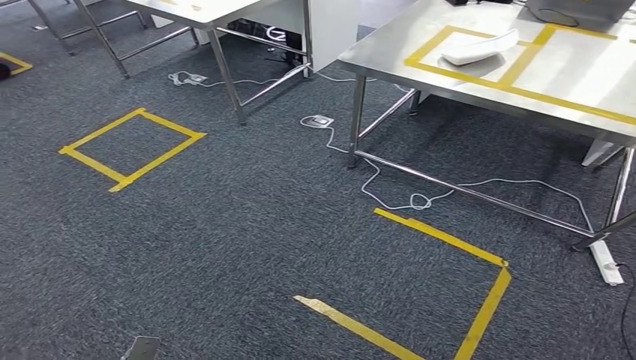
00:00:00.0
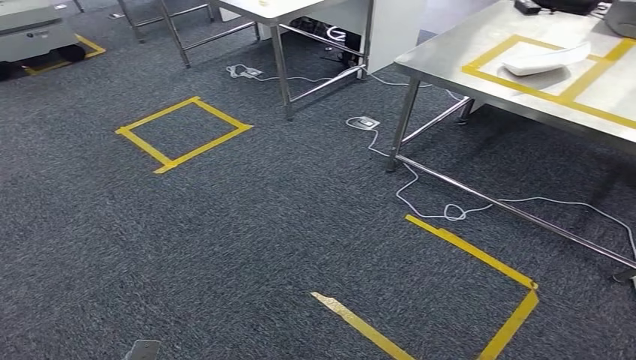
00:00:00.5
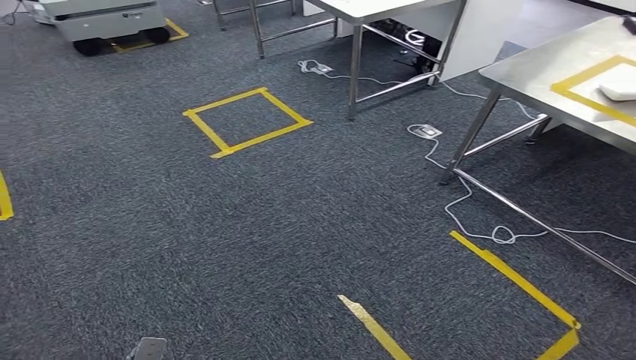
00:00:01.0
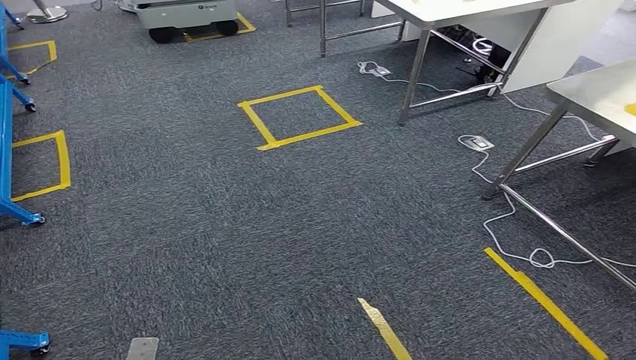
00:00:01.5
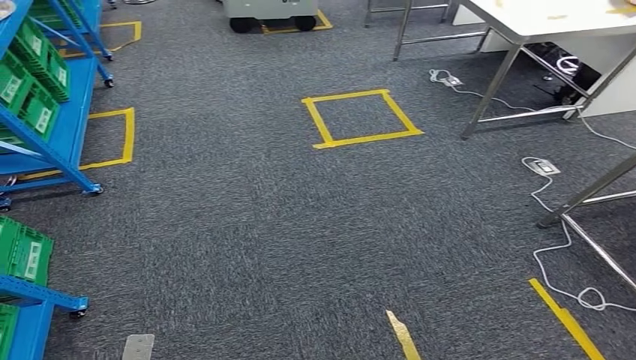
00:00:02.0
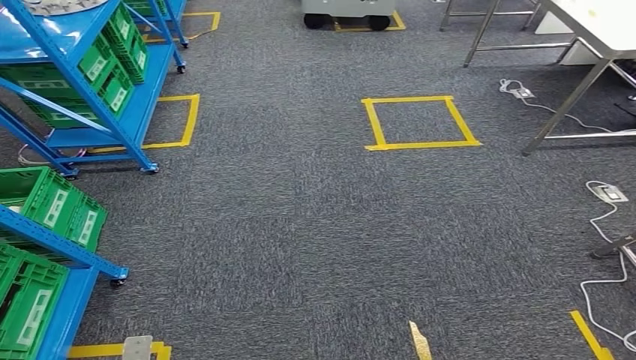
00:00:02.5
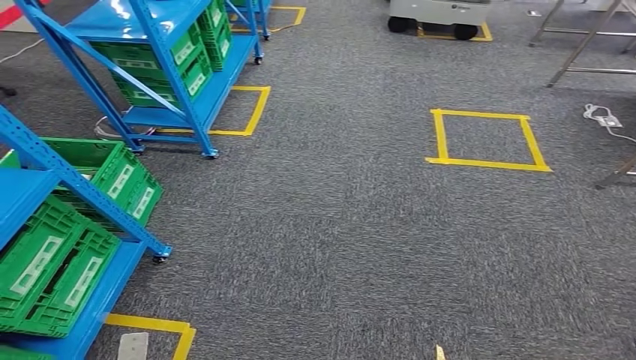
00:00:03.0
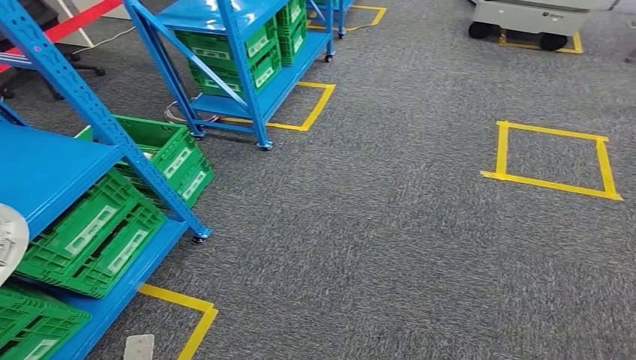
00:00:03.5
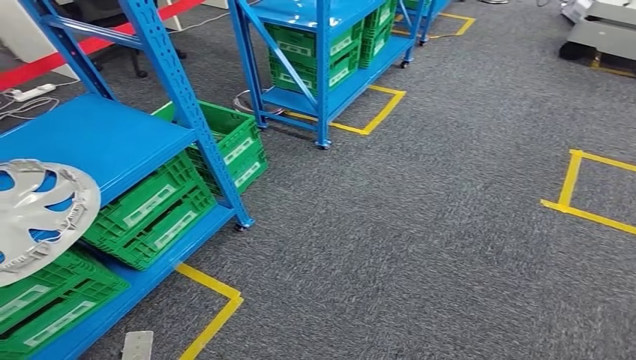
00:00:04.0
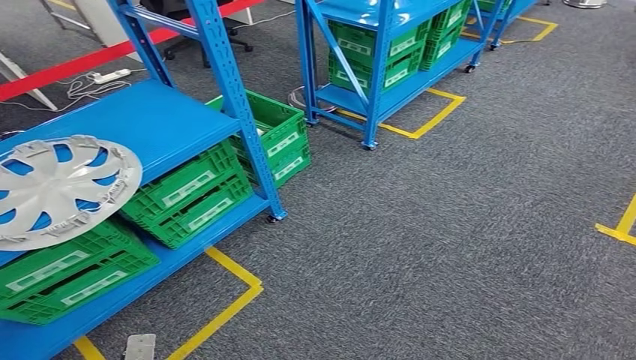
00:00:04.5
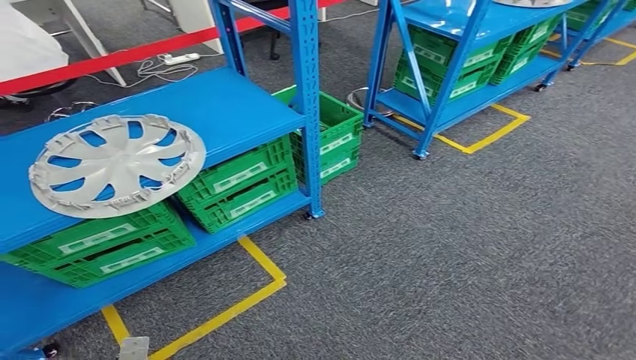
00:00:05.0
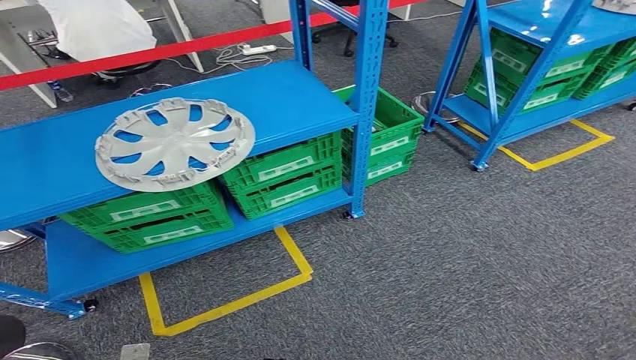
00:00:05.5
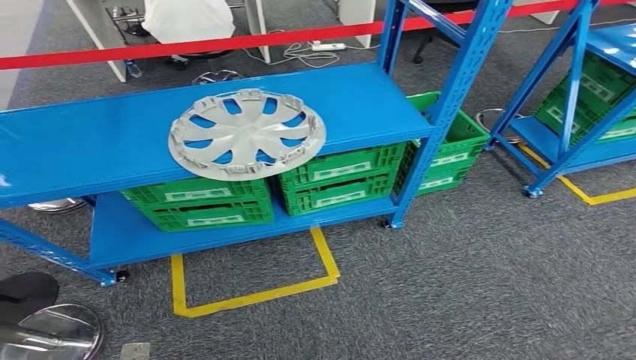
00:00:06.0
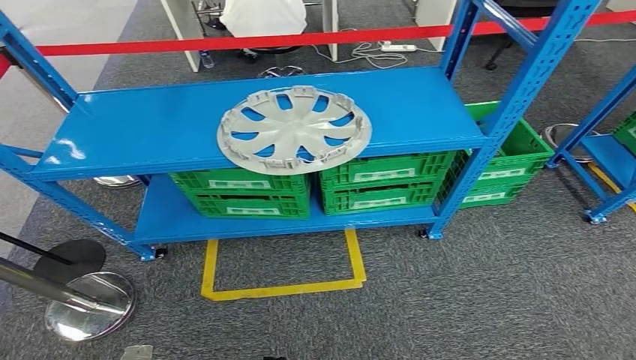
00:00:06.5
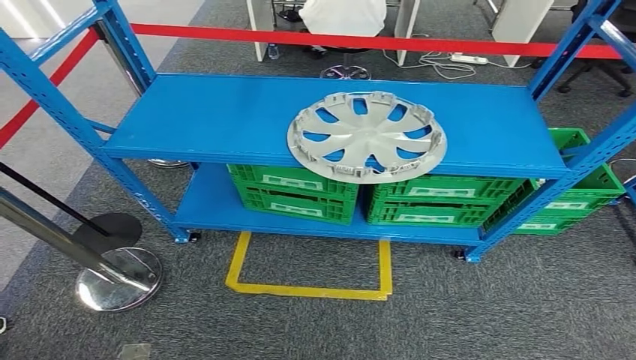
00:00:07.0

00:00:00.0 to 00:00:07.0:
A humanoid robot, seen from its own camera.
Step, 00:00:00.0 to 00:00:07.0: Move to the initial position of the workbench.

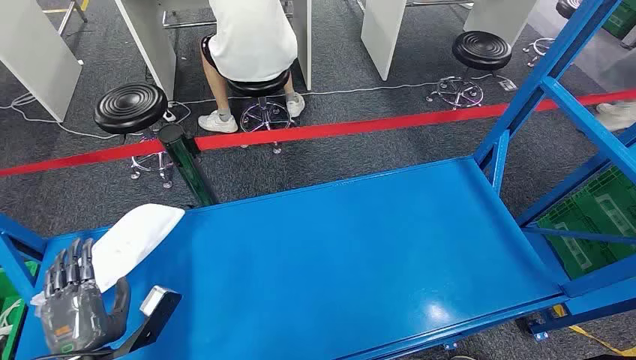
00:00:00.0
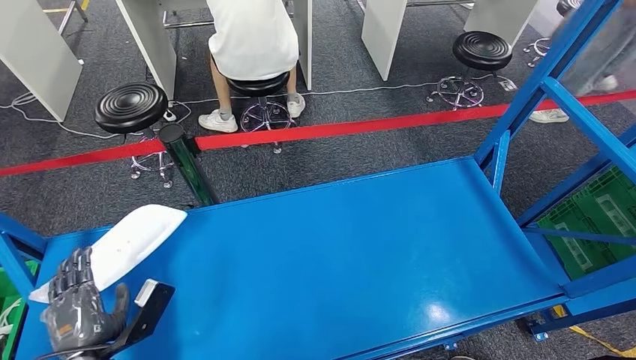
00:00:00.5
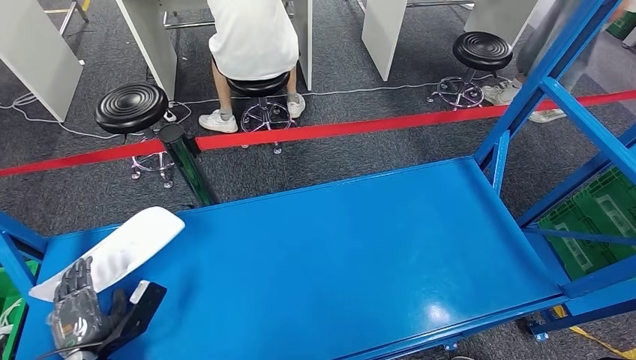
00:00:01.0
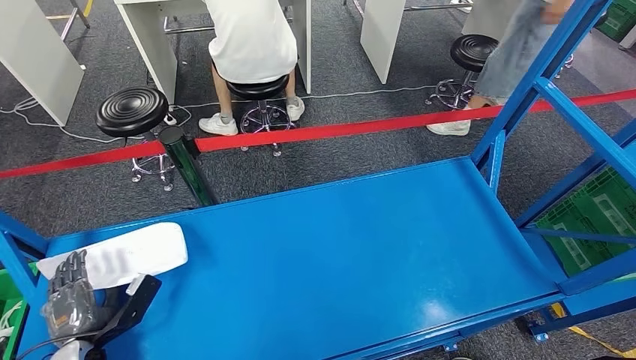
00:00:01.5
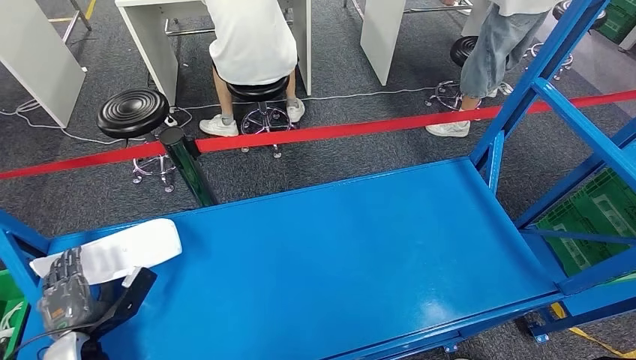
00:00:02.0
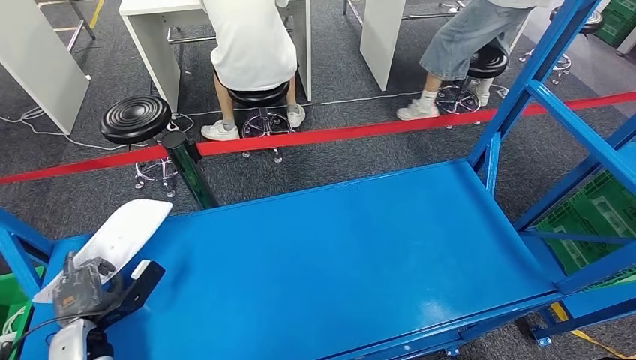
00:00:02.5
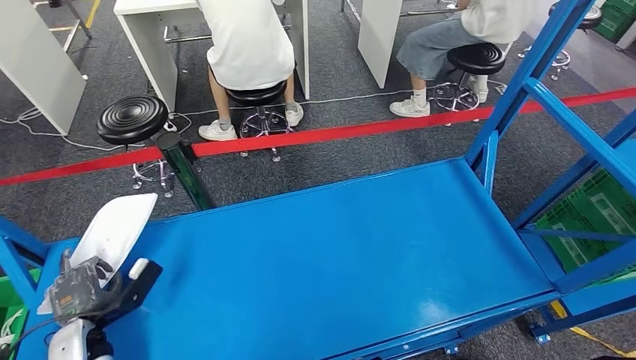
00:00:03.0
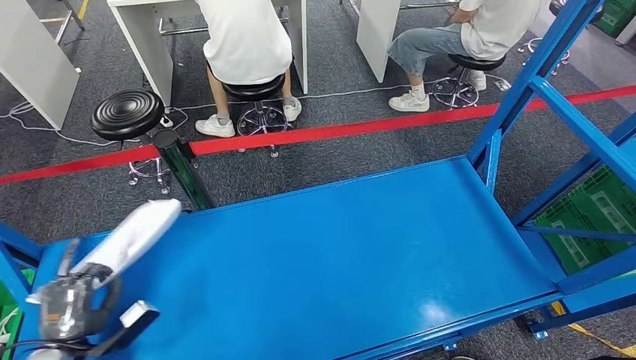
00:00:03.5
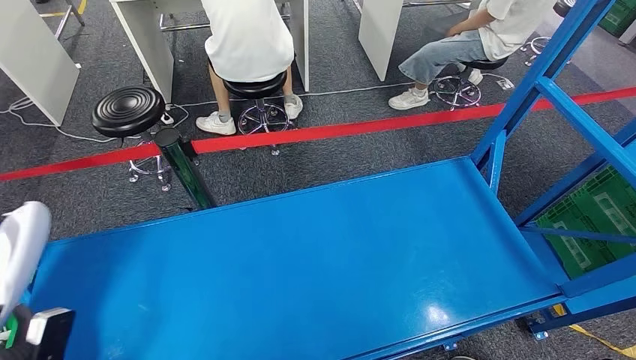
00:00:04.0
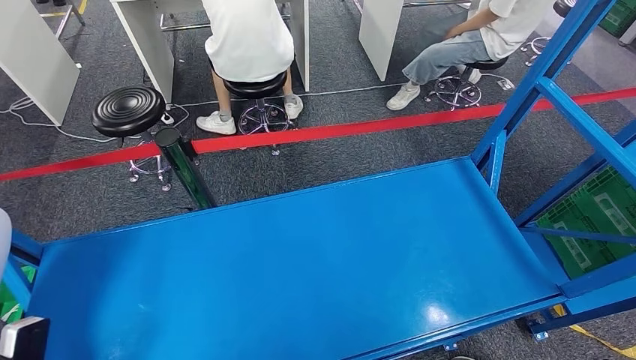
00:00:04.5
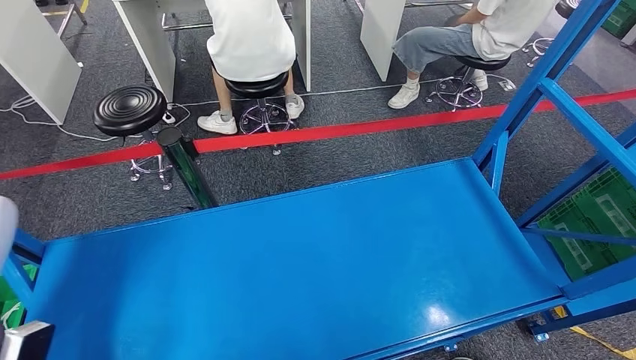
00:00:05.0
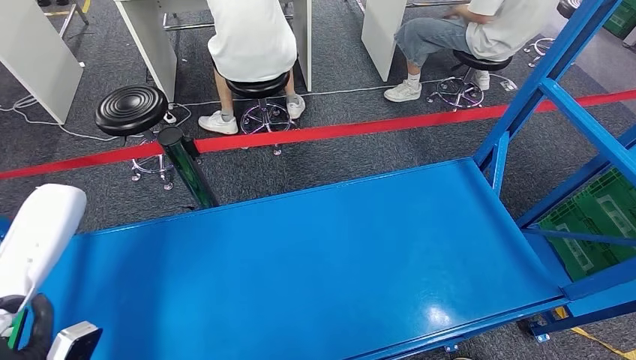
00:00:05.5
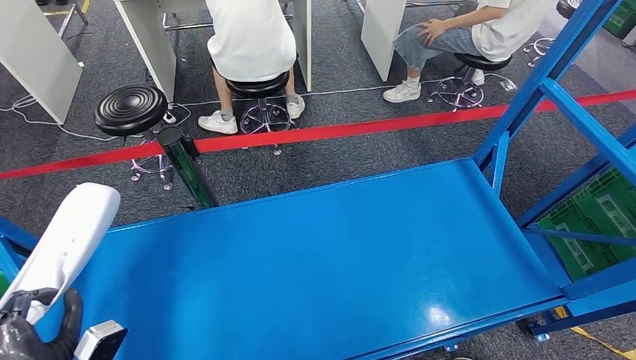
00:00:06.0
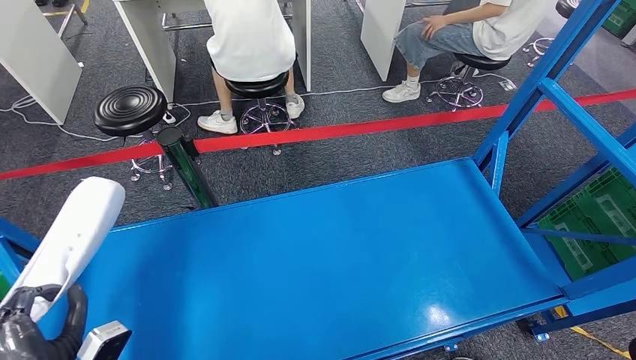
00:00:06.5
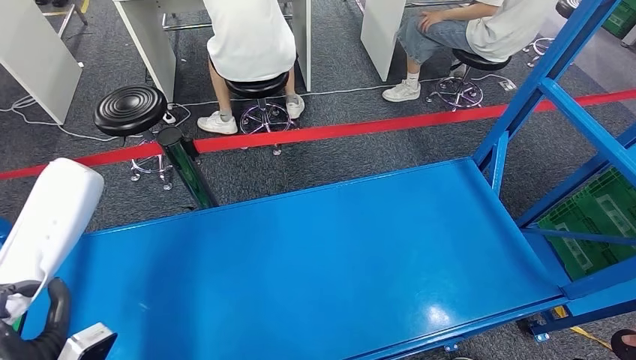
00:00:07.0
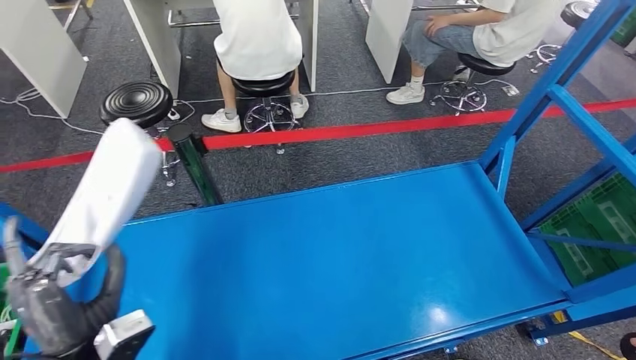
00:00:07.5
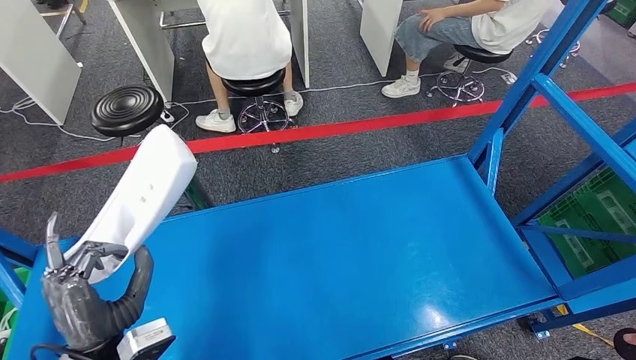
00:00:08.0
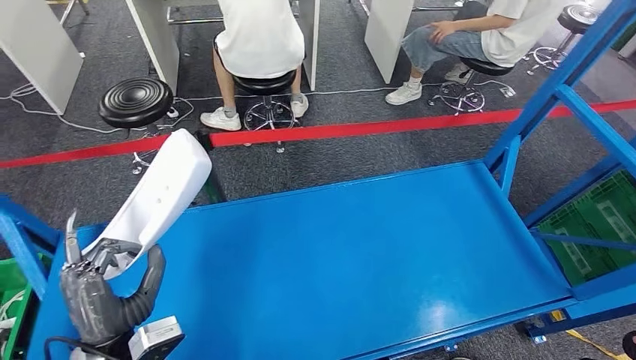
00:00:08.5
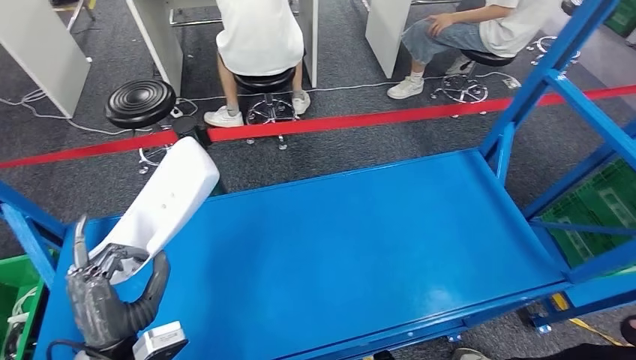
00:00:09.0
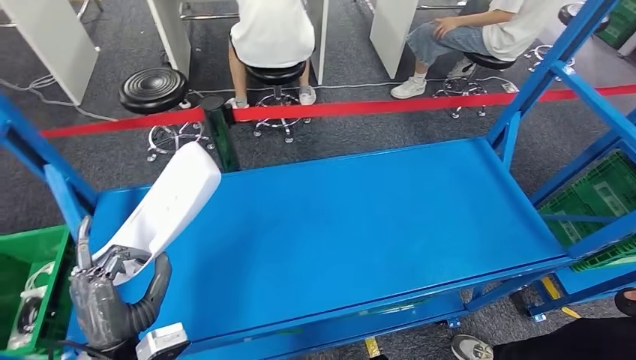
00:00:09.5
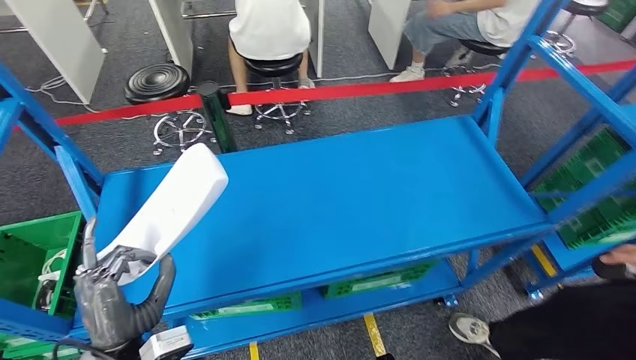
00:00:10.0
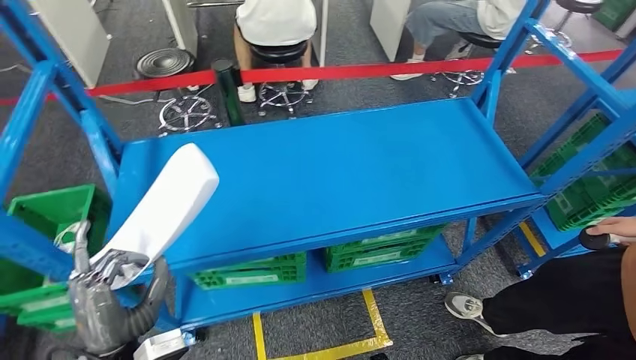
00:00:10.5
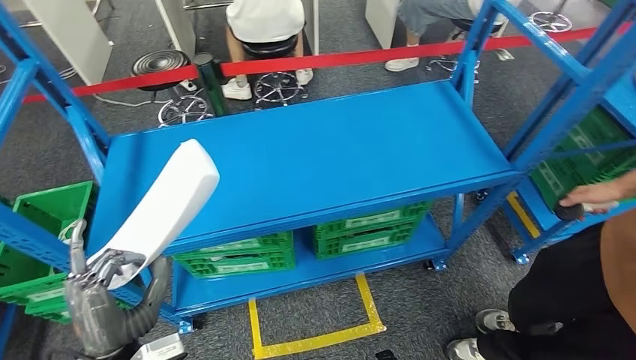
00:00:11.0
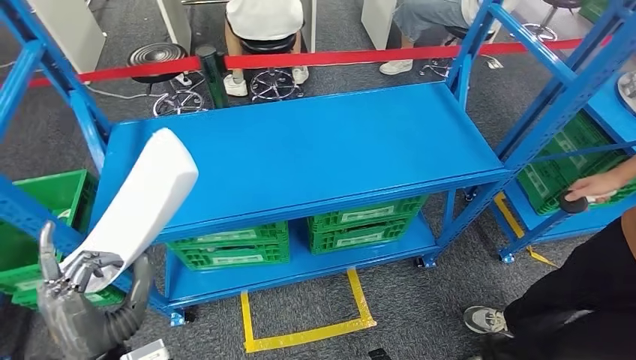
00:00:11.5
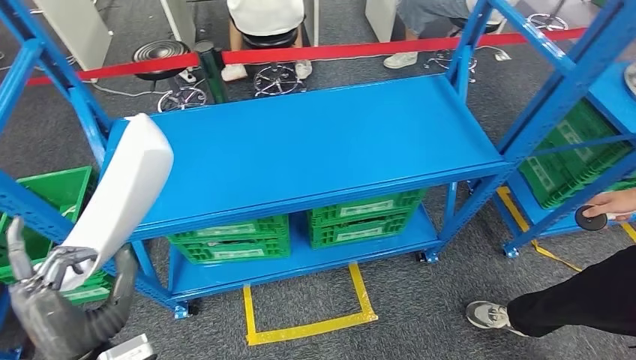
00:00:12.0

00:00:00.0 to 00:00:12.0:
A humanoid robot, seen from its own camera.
00:00:04.0 to 00:00:06.0: The left hand moves to the right, approximately 5 cm.

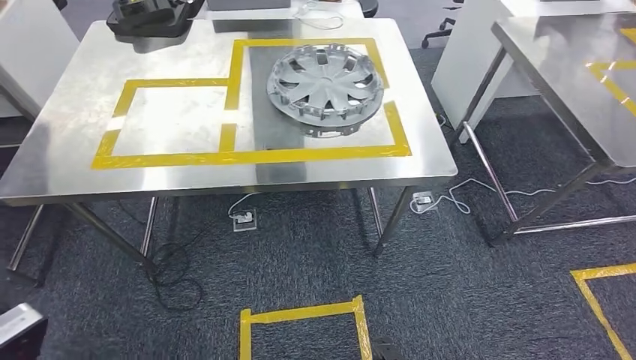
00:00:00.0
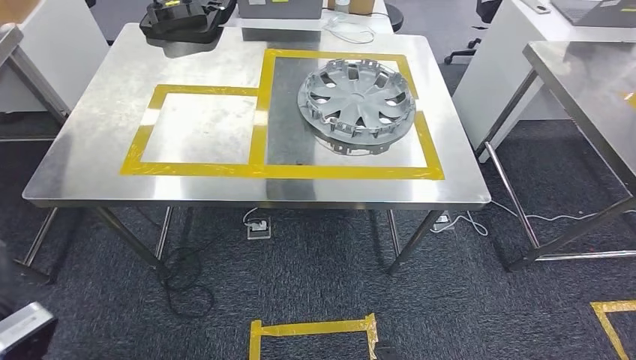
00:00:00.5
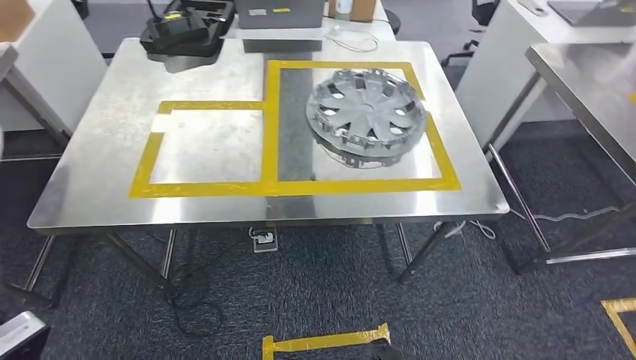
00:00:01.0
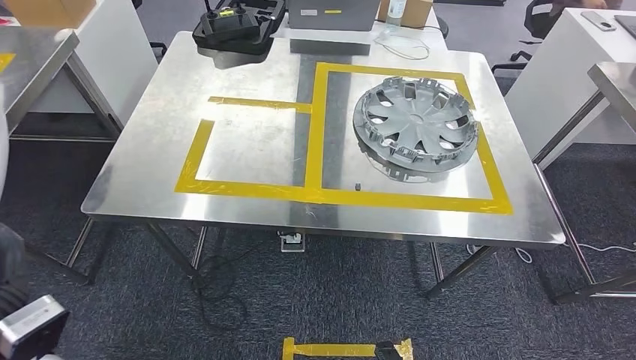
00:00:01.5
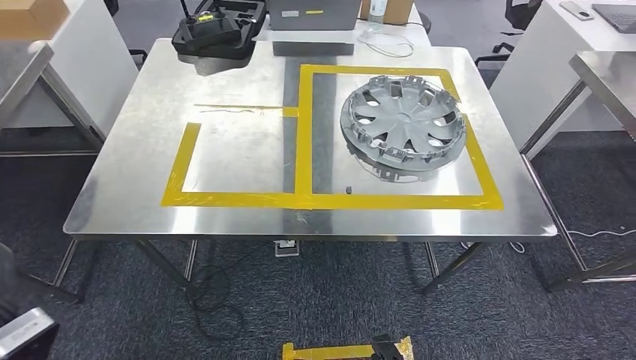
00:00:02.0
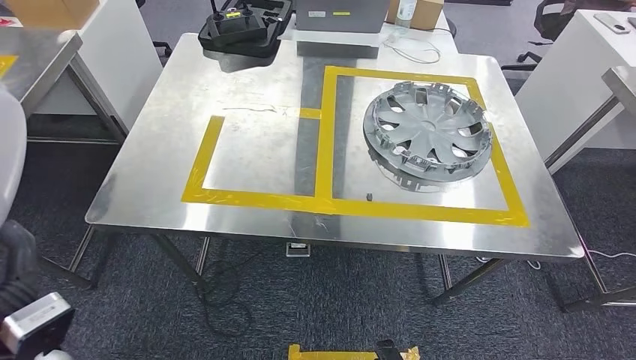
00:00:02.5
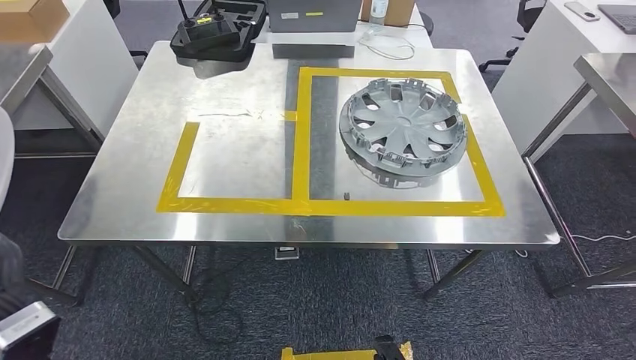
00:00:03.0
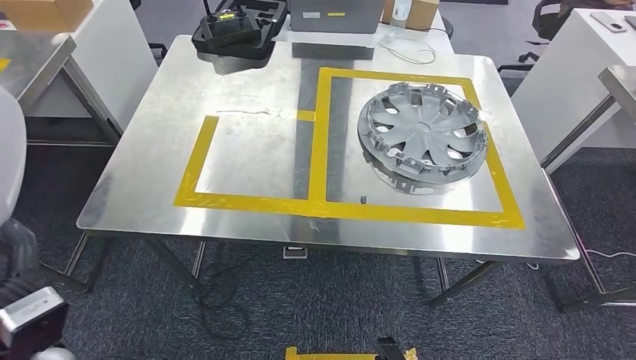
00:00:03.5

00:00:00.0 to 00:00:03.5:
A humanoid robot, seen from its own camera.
Step, 00:00:00.0 to 00:00:02.0: Bring the small component to the front of the workbench.
